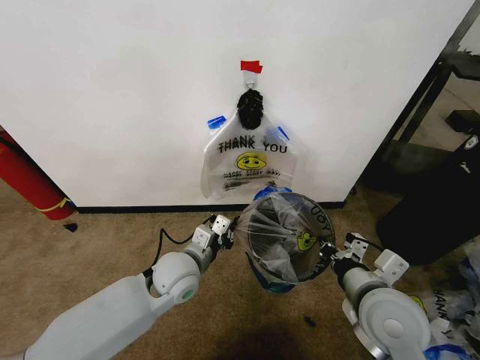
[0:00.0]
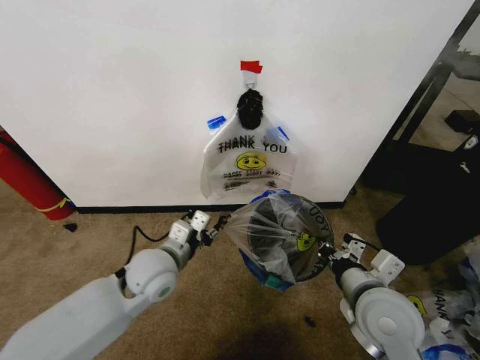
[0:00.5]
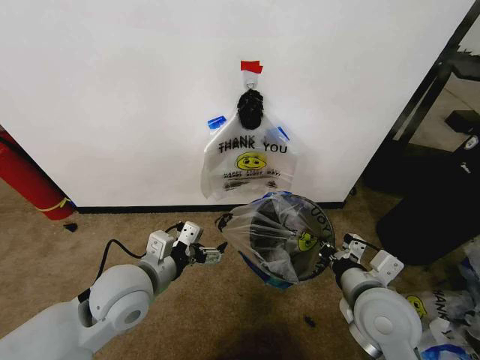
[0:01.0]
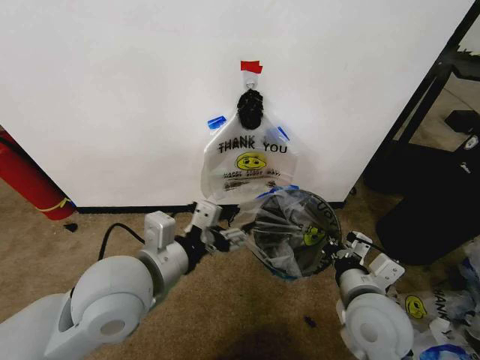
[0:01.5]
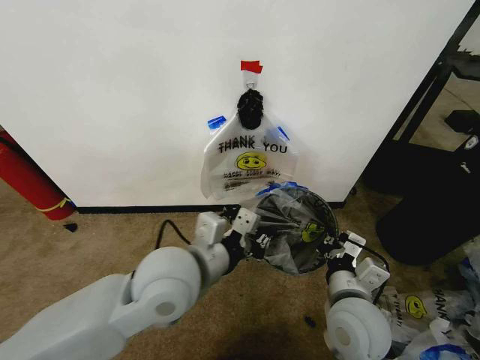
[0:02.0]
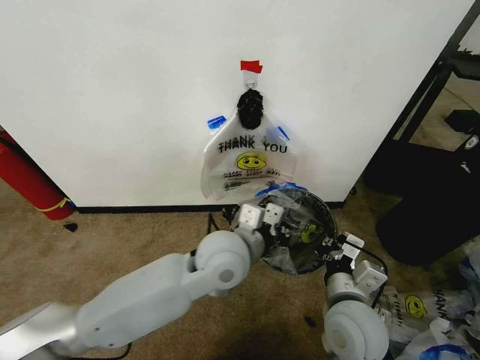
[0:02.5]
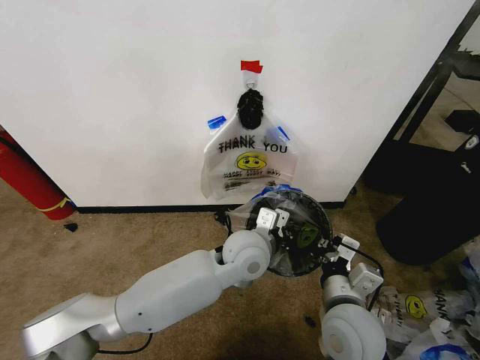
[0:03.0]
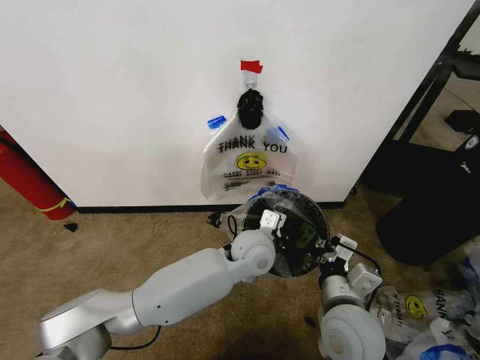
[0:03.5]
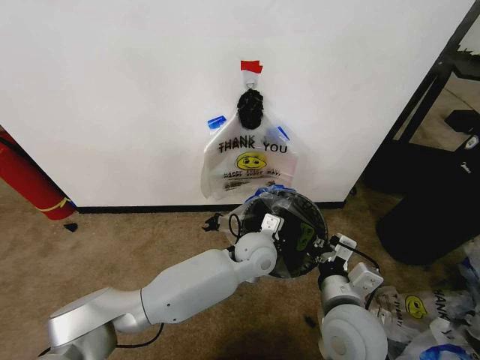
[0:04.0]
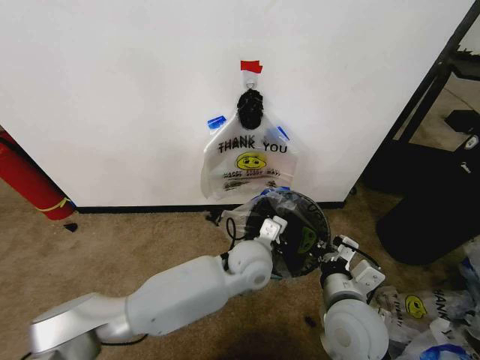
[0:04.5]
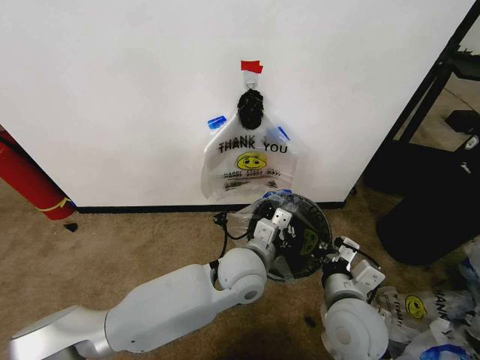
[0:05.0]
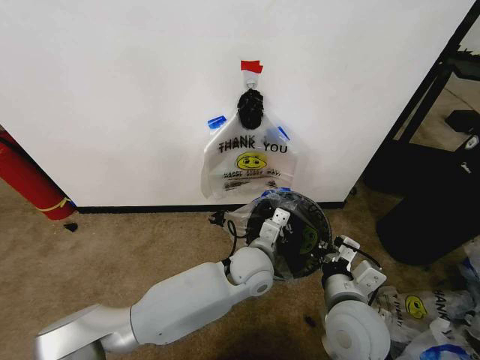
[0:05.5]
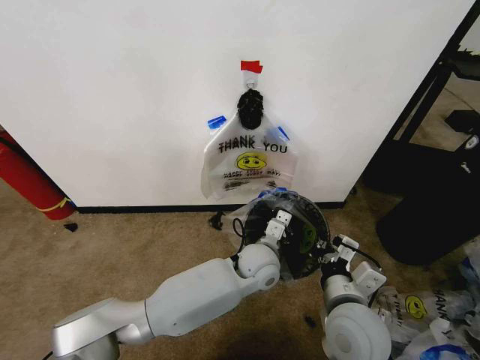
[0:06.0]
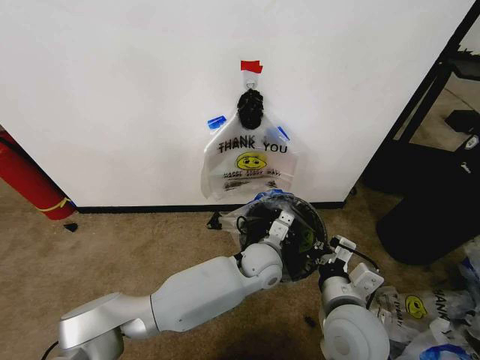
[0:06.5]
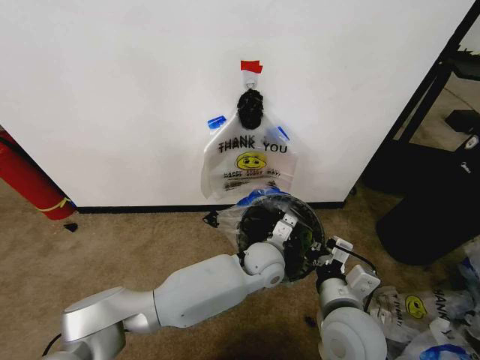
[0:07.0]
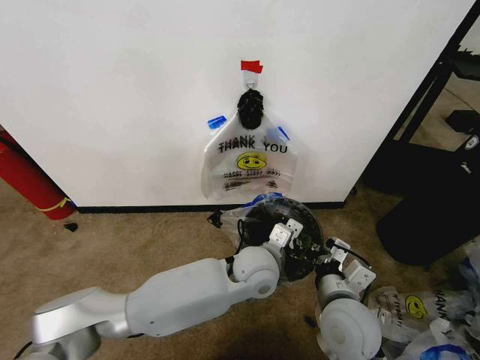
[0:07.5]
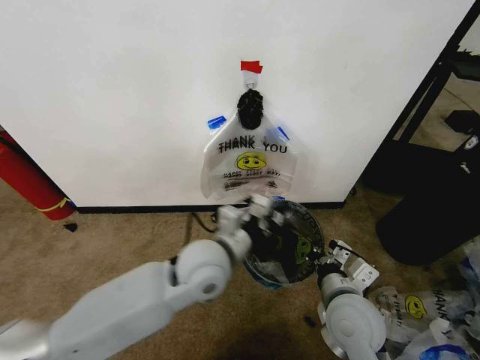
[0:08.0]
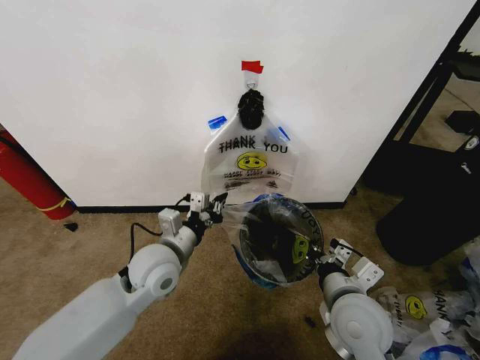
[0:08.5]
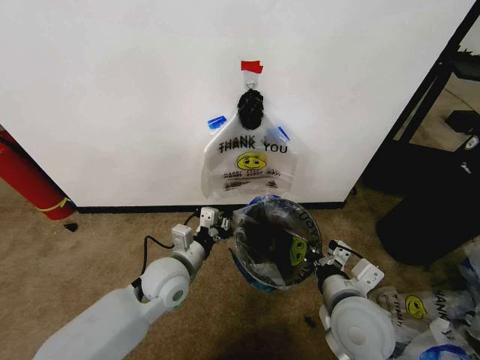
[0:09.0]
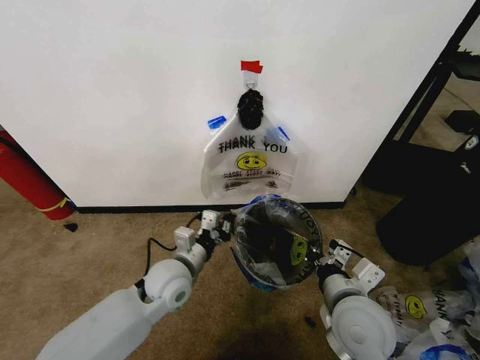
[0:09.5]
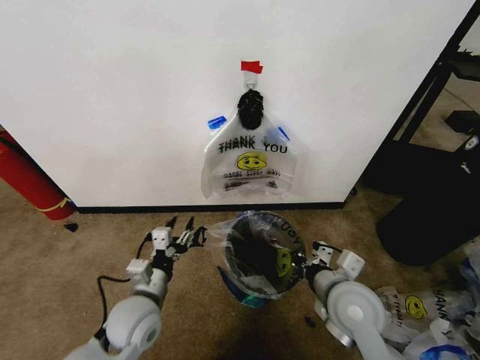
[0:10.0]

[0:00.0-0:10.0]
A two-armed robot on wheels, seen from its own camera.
Task of the whole recording: Pick up the garbage bag from the wall and place it over the trash bin.
0:00.0 to 0:02.0: The left gripper heads upward and backward, covering about 15 cm, and opens, then closes again. The right gripper changes place by some 5 cm.
0:02.0 to 0:04.0: The left gripper goes approximately 25 cm to the right, downward and forward.
0:06.0 to 0:08.0: The left gripper moves to the left, upward and backward, about 15 cm.
0:08.0 to 0:10.0: The left gripper travels to the left, downward and backward by about 20 cm, and opens up.

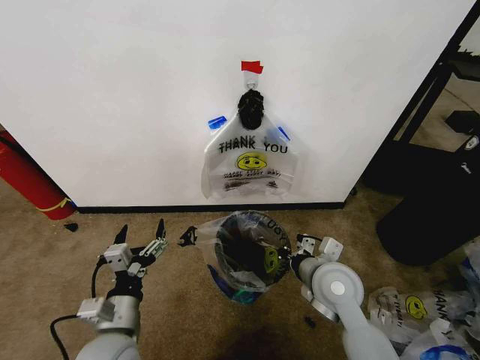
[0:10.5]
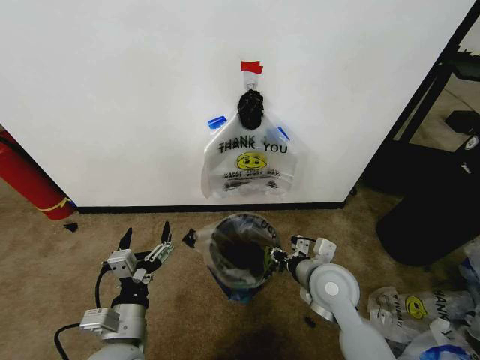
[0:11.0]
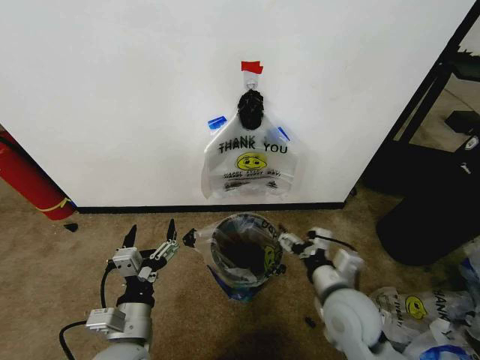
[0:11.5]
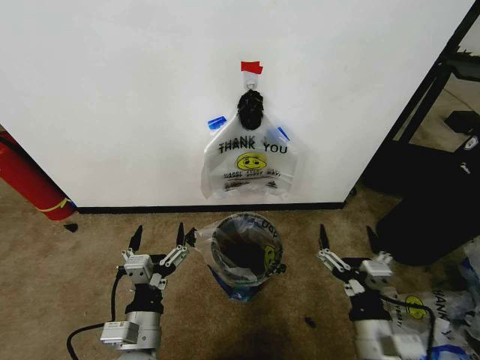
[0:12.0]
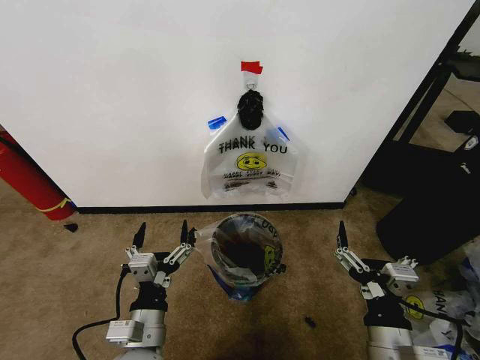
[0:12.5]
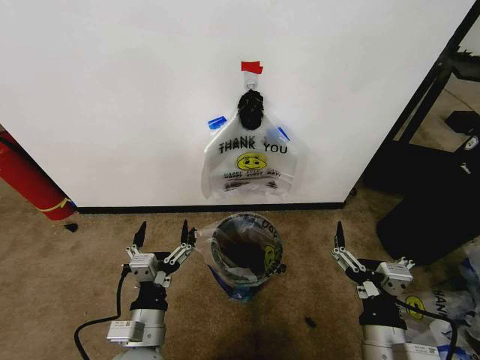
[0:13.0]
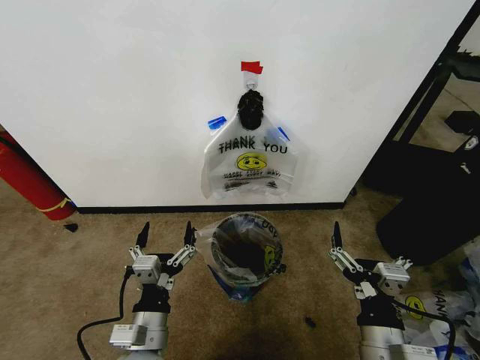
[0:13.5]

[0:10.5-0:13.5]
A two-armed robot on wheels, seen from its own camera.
Task of the whole recording: Pick up the garbage bag from the wall and place it over the trash bin.
0:10.5 to 0:12.0: The right gripper heads backward, covering roughly 15 cm, and opens up; the left gripper shifts by some 5 cm.
0:12.0 to 0:13.5: There are only small adjustments of the grippers.

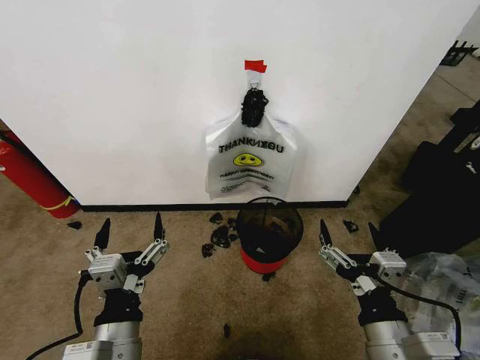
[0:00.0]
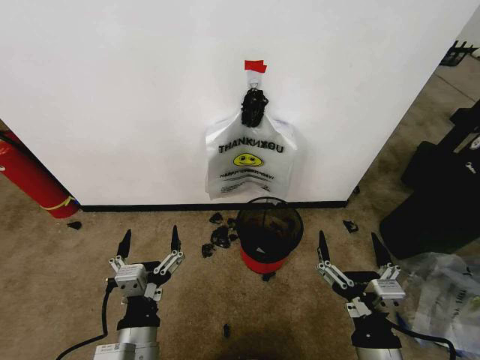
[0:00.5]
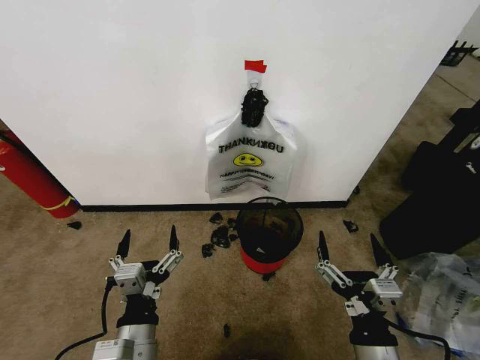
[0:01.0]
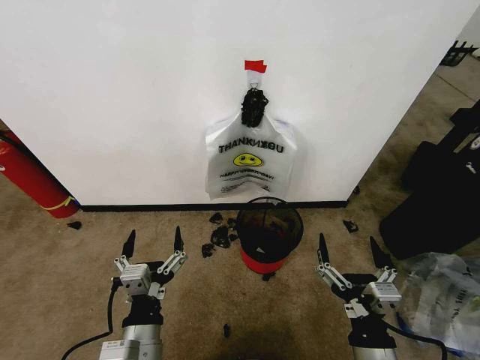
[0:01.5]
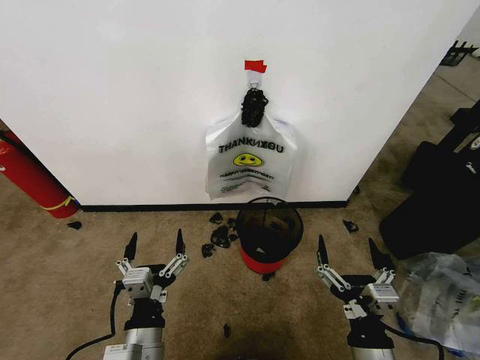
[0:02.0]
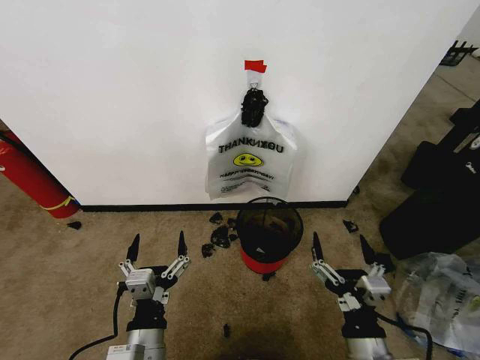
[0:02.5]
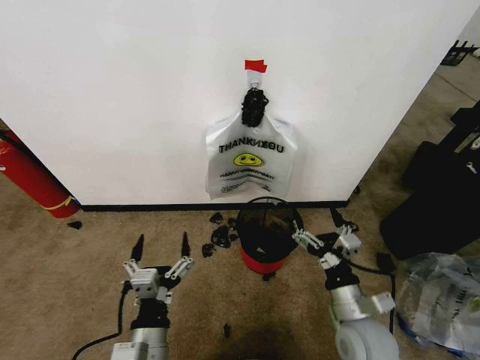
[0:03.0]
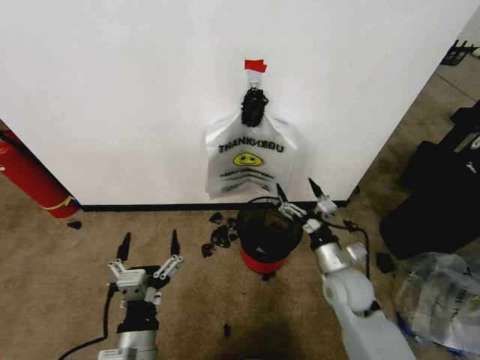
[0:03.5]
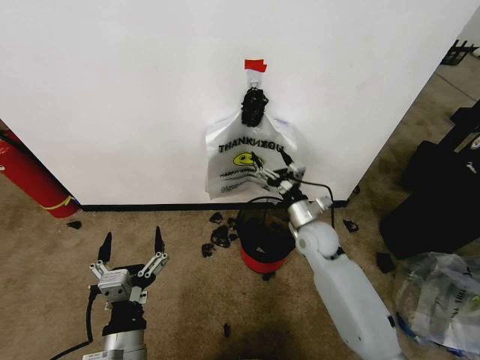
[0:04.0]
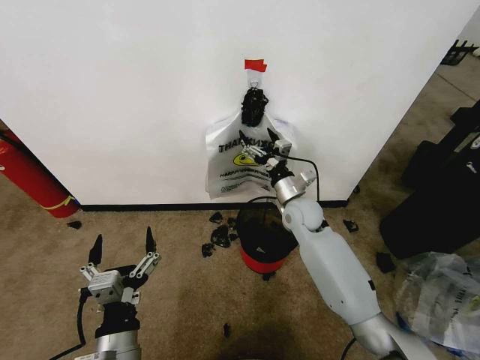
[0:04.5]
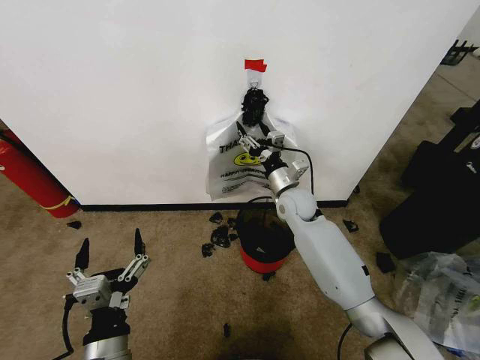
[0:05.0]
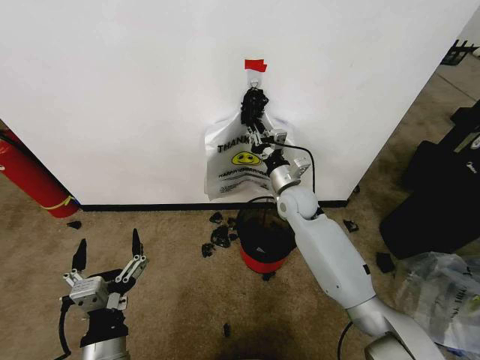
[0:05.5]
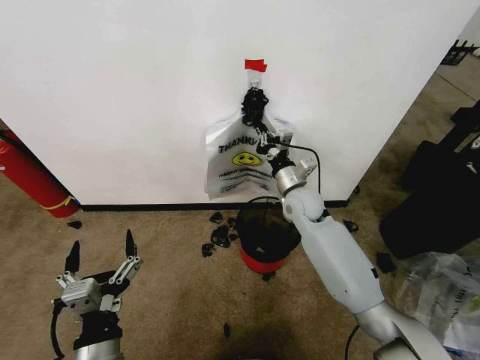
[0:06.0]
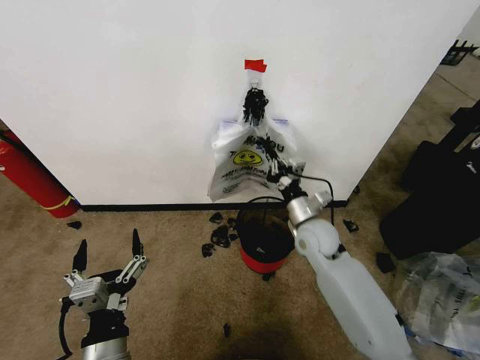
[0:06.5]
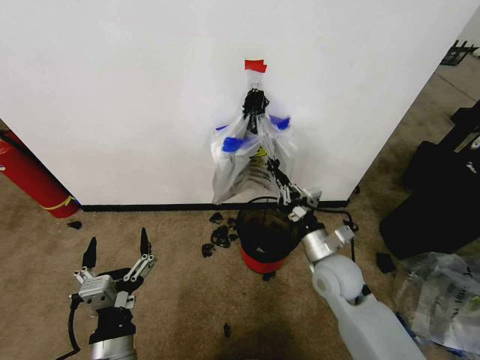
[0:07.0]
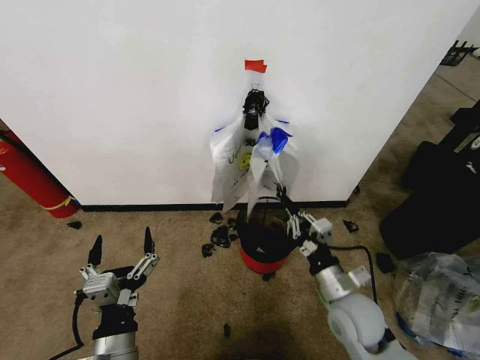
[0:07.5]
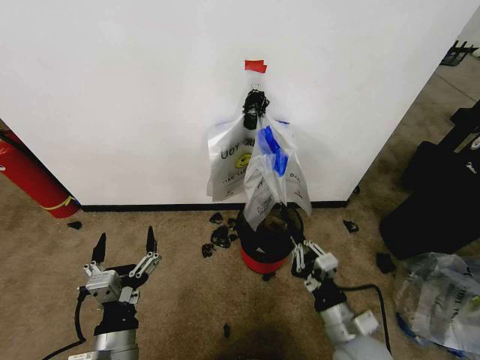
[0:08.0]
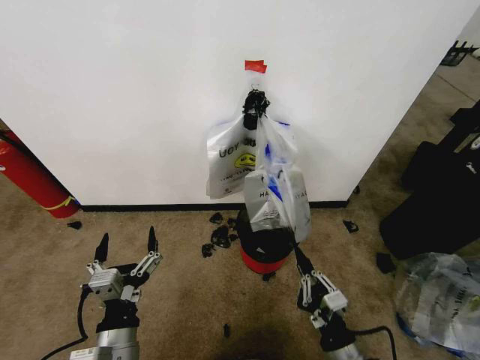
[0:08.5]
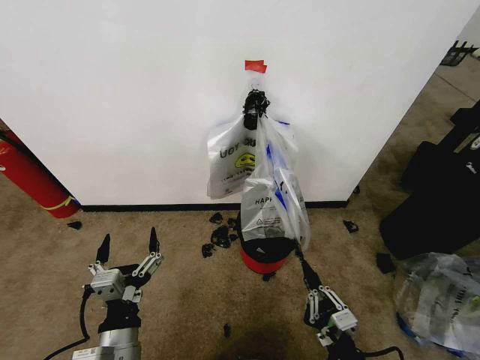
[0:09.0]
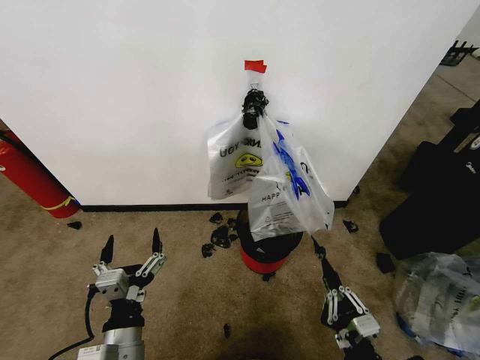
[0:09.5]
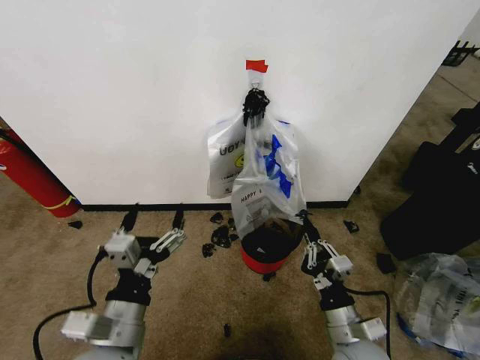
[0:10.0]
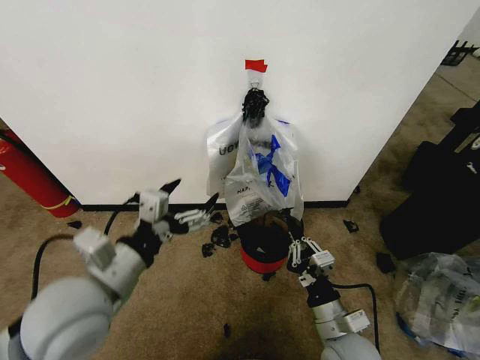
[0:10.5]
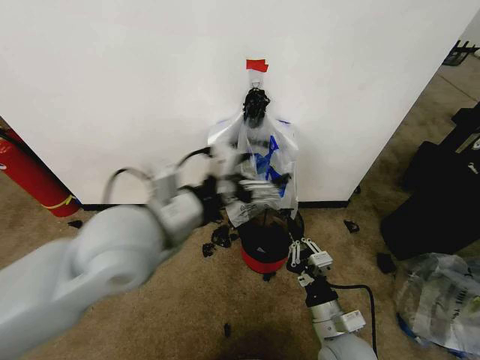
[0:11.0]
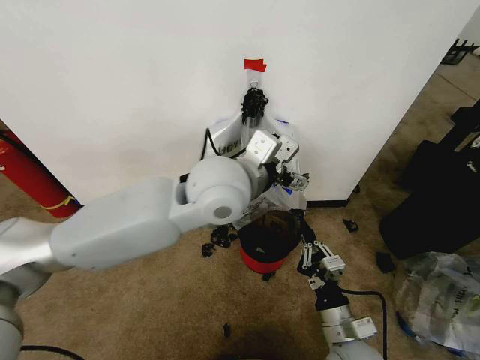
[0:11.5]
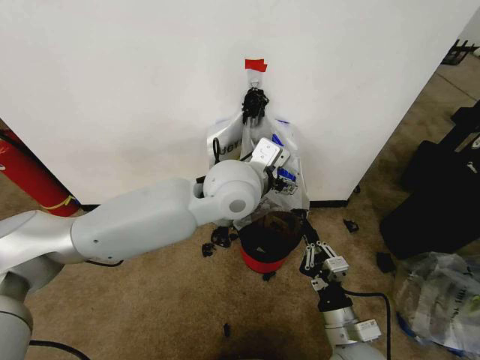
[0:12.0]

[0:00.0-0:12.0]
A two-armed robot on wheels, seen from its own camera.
Task of the whole recording: Pick up the garbage bag from the wall and place it over the trash bin.
0:02.0 to 0:04.0: The right gripper moves forward, approximately 35 cm.
0:04.0 to 0:06.0: The right gripper moves forward and upward, approximately 10 cm, and closes.
0:06.0 to 0:08.0: The right gripper travels backward by about 30 cm.
0:08.0 to 0:10.0: The left gripper is displaced upward by roughly 5 cm. Meanwhile the right gripper goes backward and returns, about 10 cm each way.
0:10.0 to 0:12.0: The left gripper is displaced forward, to the right and upward by approximately 35 cm.
